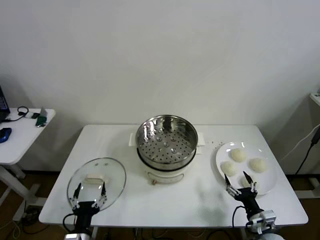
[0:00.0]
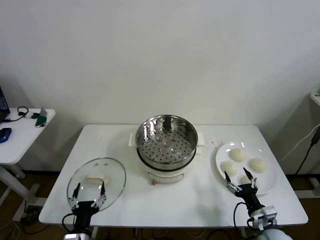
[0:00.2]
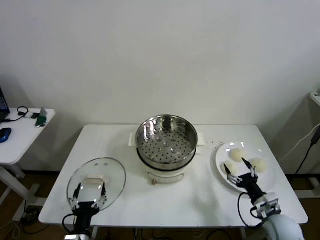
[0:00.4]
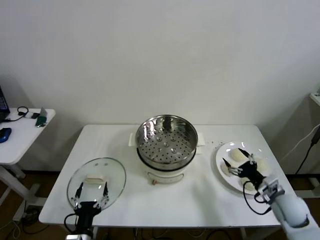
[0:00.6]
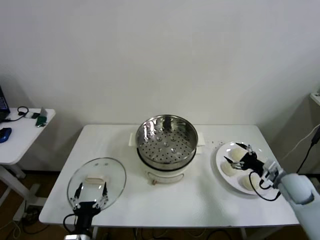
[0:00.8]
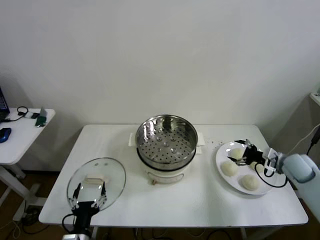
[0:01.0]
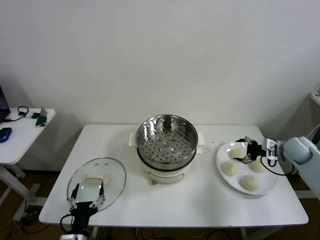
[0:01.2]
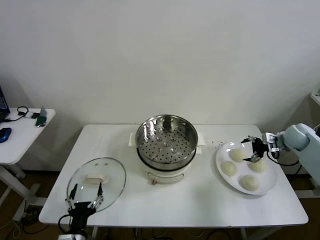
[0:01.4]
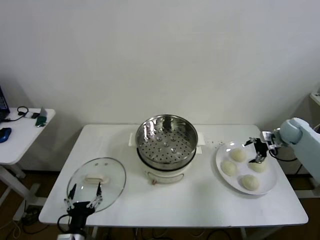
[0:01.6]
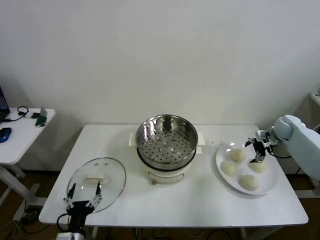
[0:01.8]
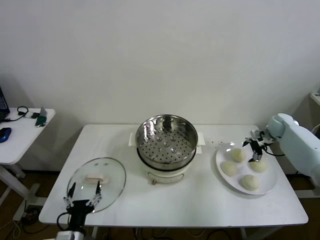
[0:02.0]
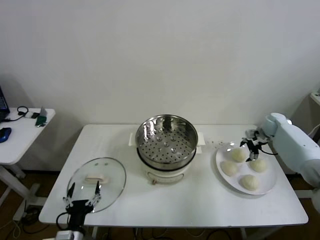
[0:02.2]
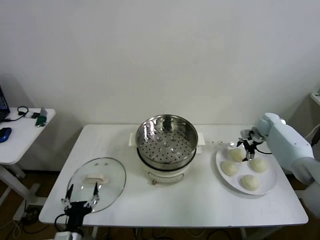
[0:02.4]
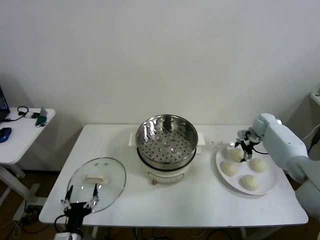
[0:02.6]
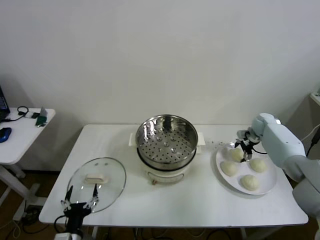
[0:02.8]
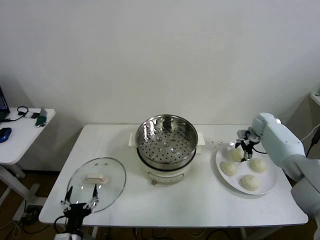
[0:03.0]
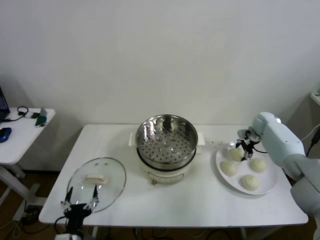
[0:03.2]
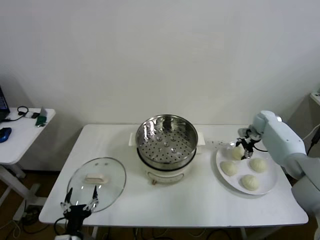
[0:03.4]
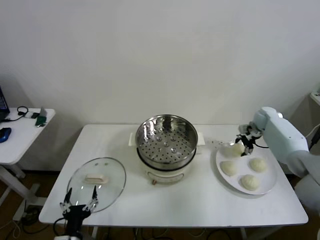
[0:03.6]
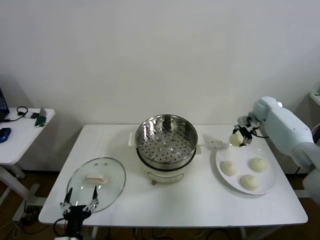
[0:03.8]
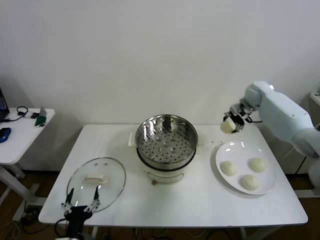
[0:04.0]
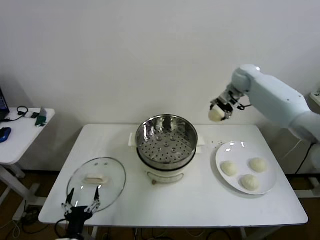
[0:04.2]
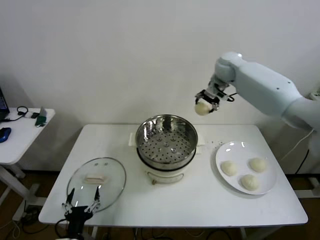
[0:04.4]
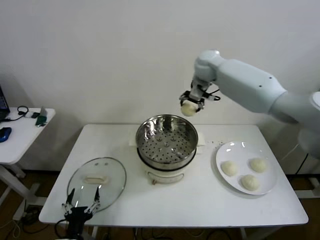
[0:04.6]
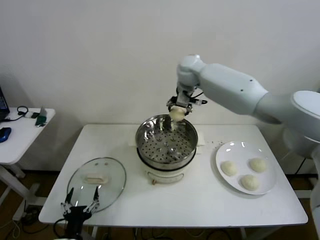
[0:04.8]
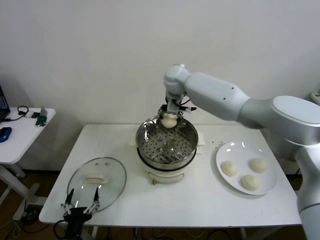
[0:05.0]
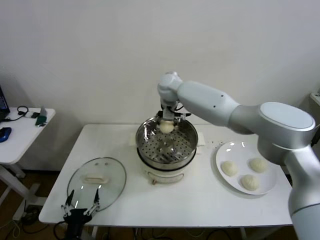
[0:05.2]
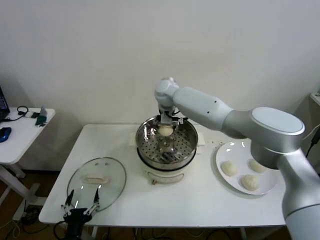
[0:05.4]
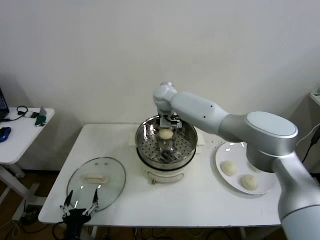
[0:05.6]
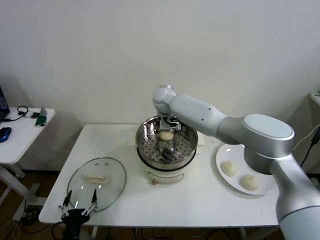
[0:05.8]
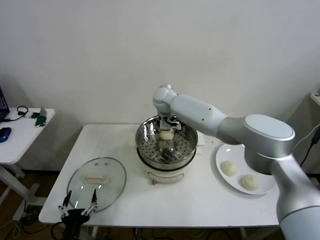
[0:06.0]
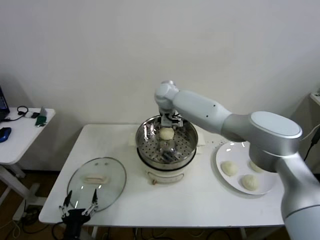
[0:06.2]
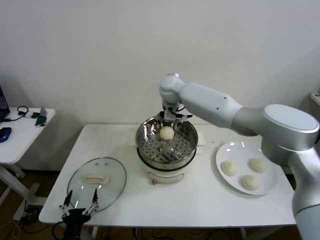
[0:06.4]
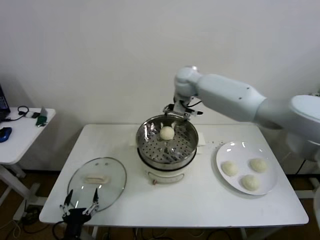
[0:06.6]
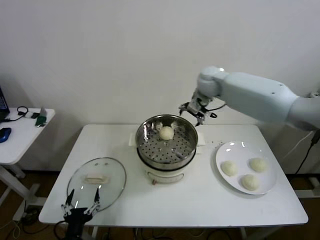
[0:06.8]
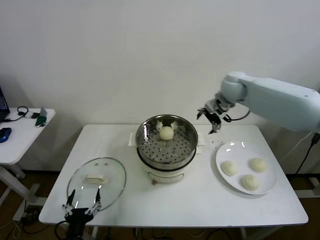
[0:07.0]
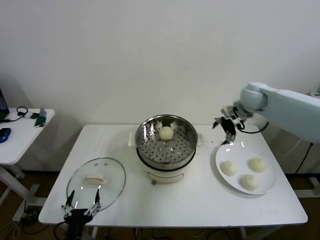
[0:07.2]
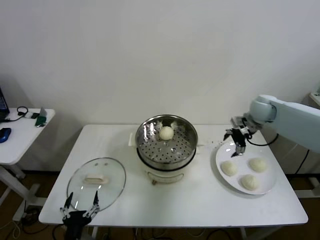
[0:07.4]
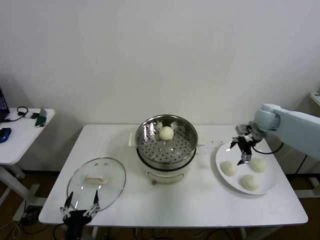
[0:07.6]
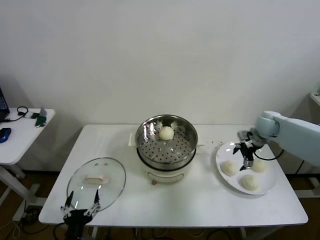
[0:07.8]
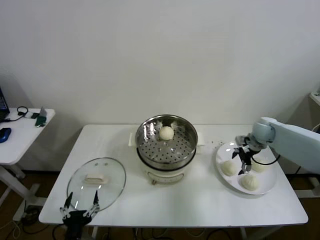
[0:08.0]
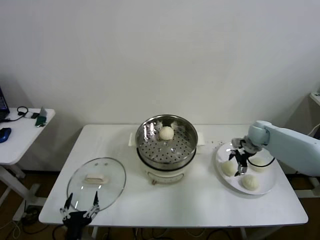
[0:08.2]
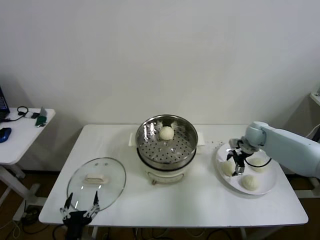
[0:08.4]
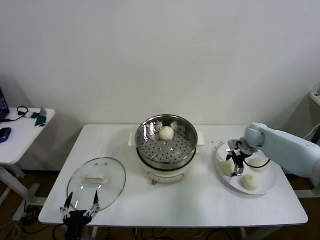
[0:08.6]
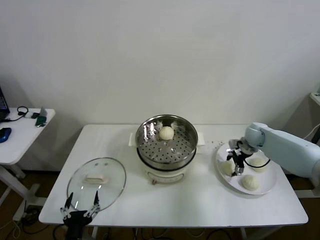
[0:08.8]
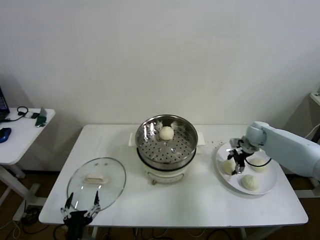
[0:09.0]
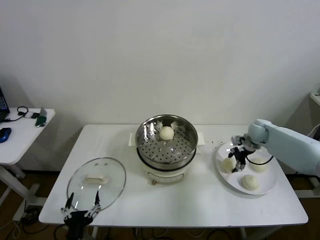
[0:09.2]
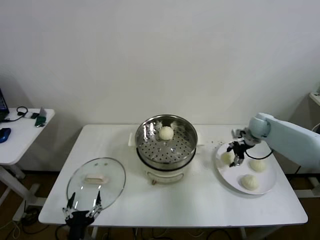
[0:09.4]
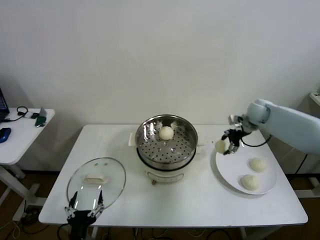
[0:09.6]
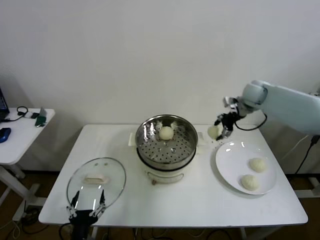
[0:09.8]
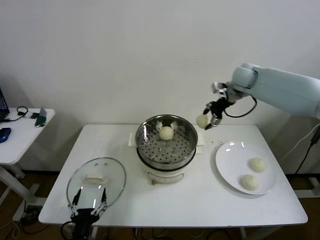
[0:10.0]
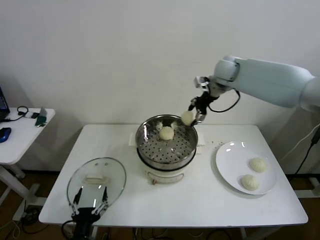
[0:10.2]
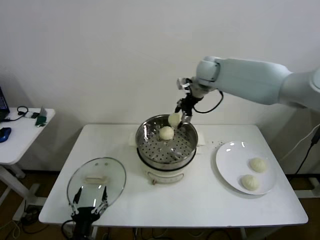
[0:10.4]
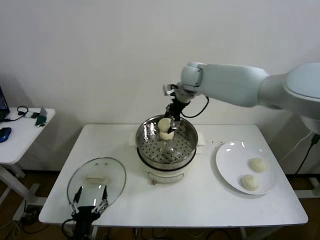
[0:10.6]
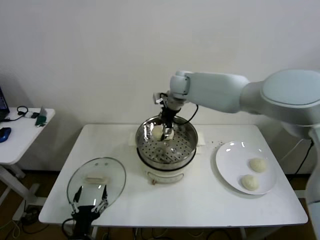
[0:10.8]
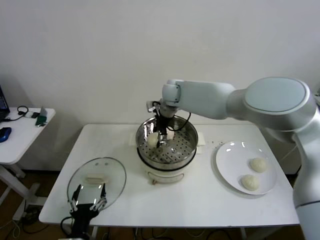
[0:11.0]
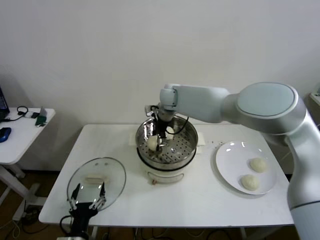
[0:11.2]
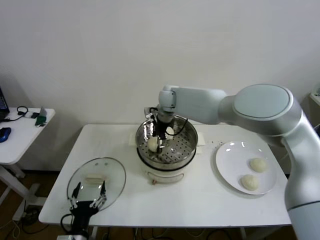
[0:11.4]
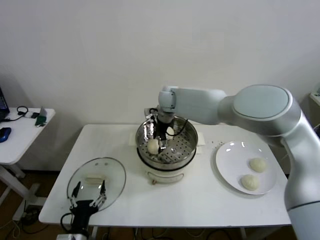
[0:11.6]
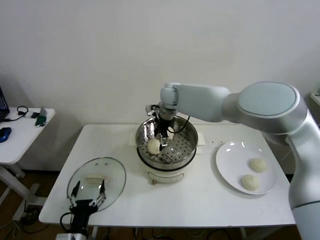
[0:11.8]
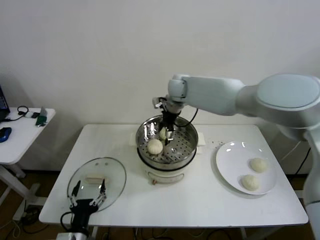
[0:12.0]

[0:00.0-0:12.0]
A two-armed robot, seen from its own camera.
Step, 0:00.0 to 0:03.0: Grasp the baozi in the plate with right gripper.
Step, 0:03.4 to 0:06.0: Place the baozi on the steamer with right gripper.
Step, 0:06.2 to 0:08.8: Grasp the baozi in the plate with right gripper.
Step, 0:09.0 to 0:11.4: Place the baozi on the steamer with right gripper.
0:01.6 to 0:03.0: The right gripper travels forward and to the left by some 10 cm, and closes up.
0:03.0 to 0:04.4: The right gripper shifts about 35 cm upward and to the left.
0:04.4 to 0:06.0: The right gripper shifts approximately 20 cm to the left and downward, and opens up.
0:06.0 to 0:07.6: The right gripper goes approximately 40 cm to the right.
0:07.6 to 0:09.0: The right gripper heads downward, covering some 10 cm, and closes its fingers.
0:09.0 to 0:10.4: The right gripper heads to the left and upward, covering some 35 cm.
0:10.4 to 0:12.0: The right gripper goes about 5 cm to the left, and opens its fingers.

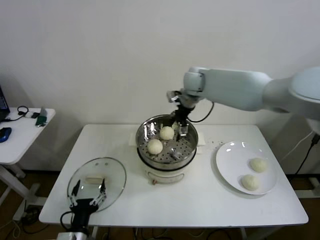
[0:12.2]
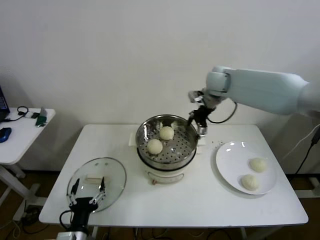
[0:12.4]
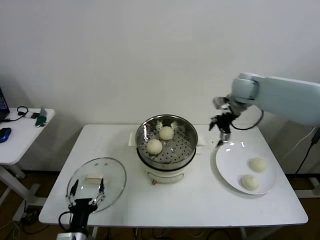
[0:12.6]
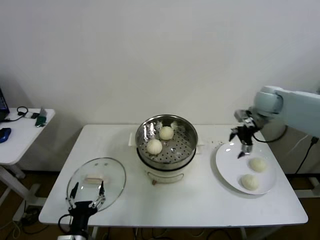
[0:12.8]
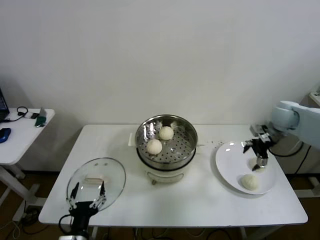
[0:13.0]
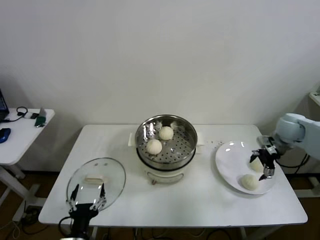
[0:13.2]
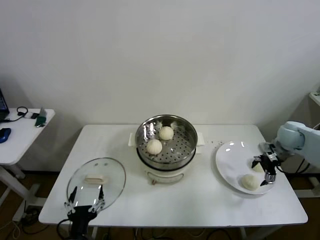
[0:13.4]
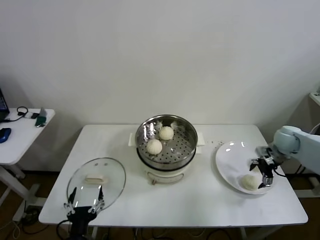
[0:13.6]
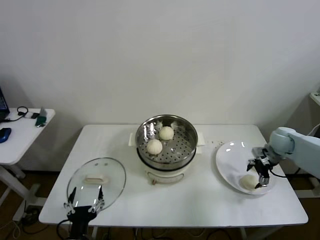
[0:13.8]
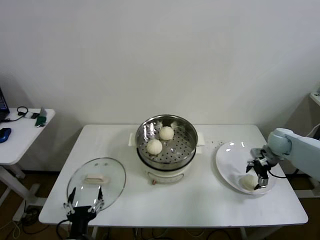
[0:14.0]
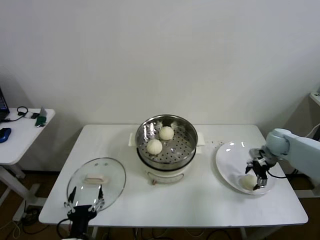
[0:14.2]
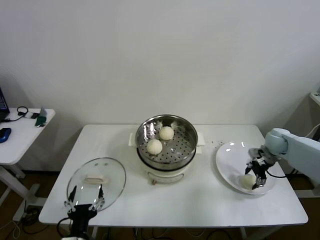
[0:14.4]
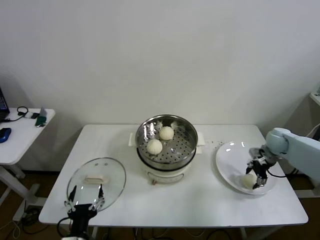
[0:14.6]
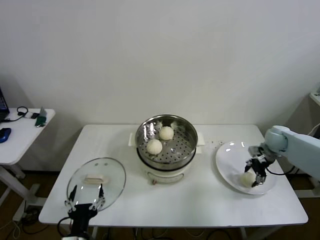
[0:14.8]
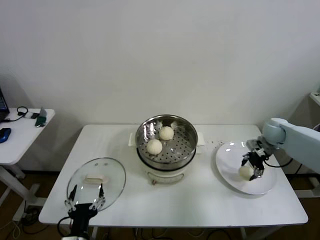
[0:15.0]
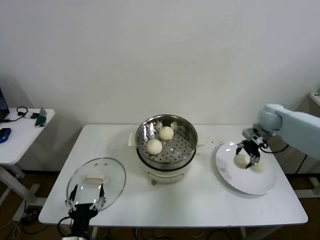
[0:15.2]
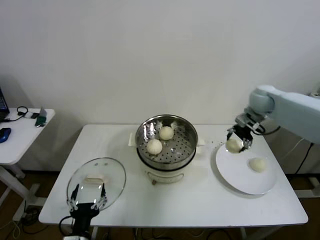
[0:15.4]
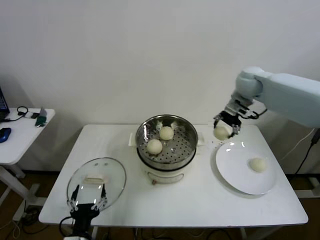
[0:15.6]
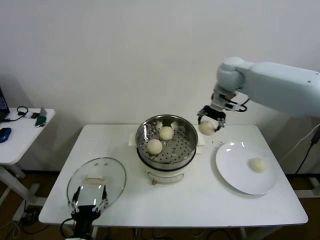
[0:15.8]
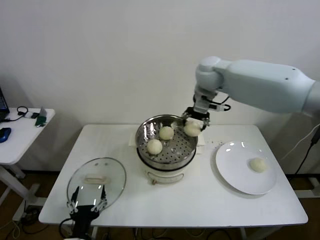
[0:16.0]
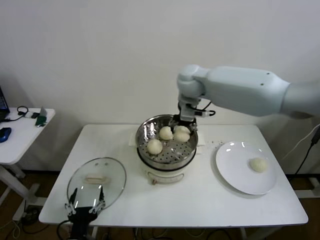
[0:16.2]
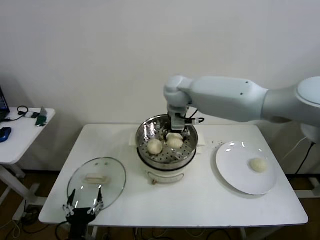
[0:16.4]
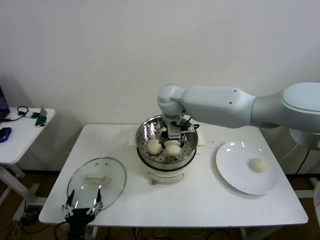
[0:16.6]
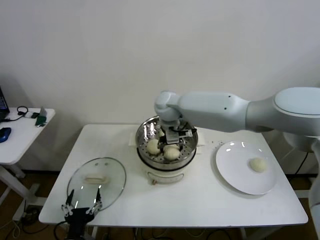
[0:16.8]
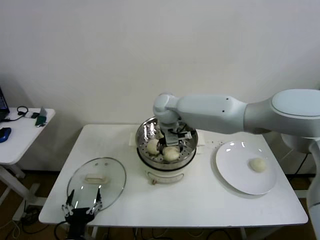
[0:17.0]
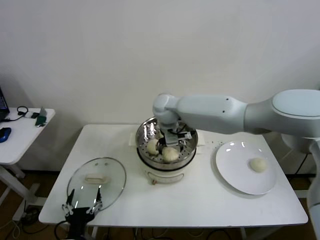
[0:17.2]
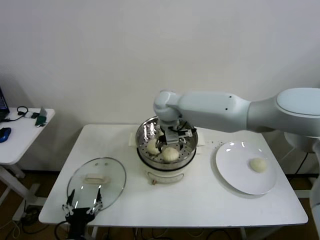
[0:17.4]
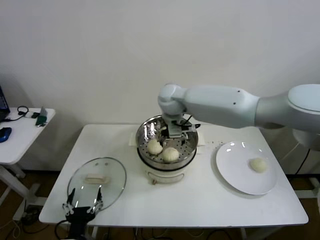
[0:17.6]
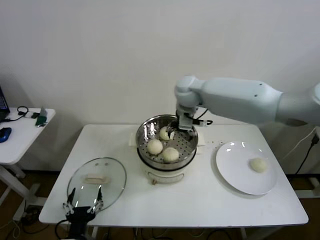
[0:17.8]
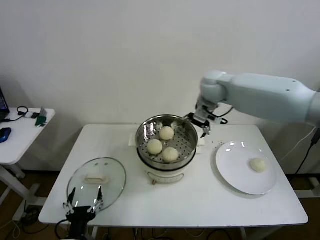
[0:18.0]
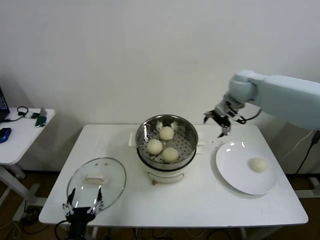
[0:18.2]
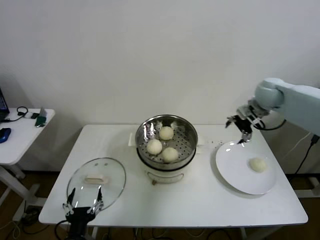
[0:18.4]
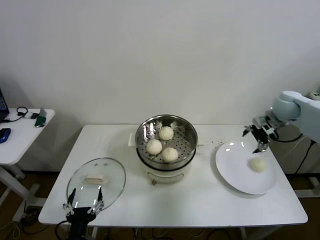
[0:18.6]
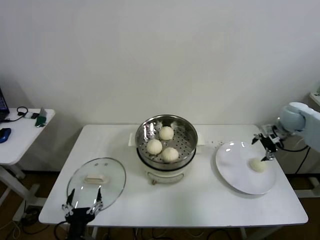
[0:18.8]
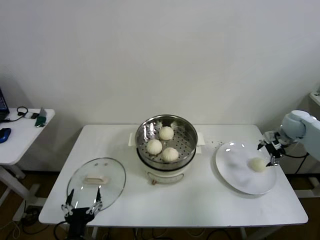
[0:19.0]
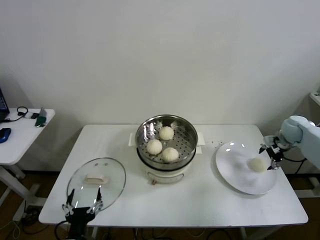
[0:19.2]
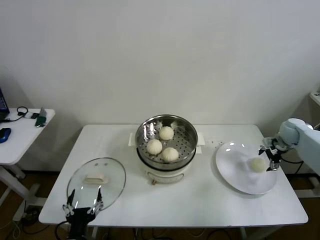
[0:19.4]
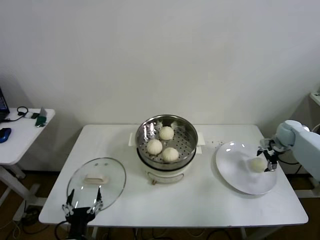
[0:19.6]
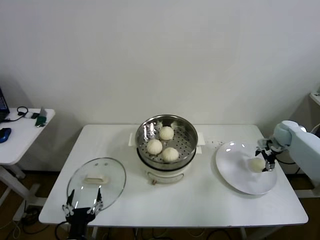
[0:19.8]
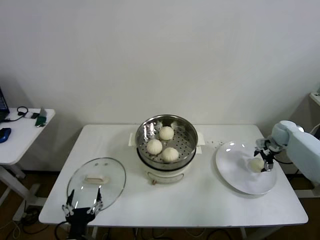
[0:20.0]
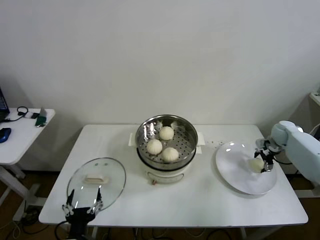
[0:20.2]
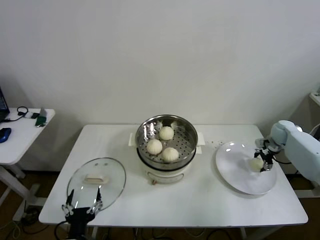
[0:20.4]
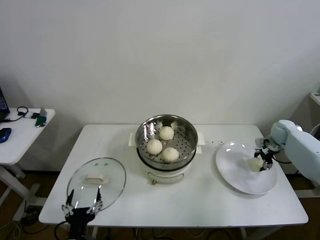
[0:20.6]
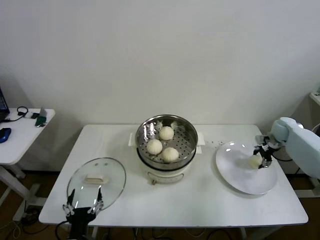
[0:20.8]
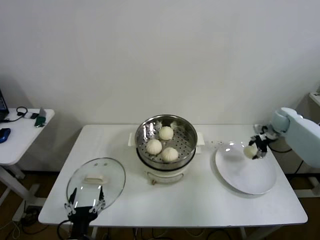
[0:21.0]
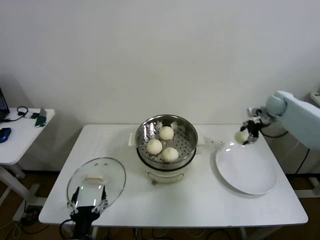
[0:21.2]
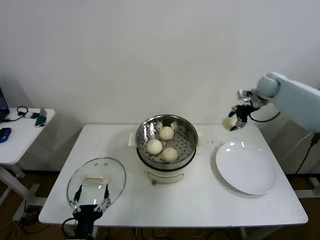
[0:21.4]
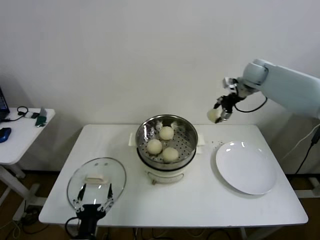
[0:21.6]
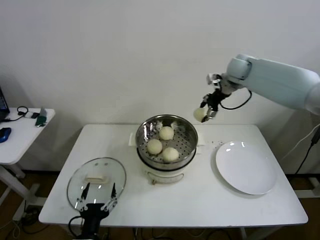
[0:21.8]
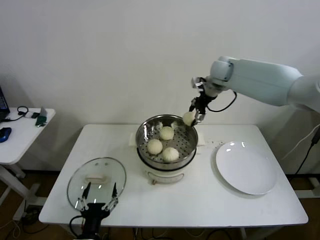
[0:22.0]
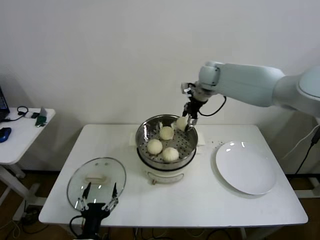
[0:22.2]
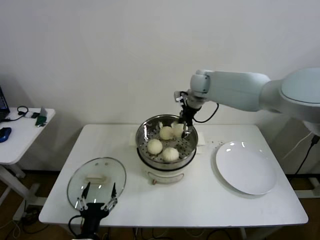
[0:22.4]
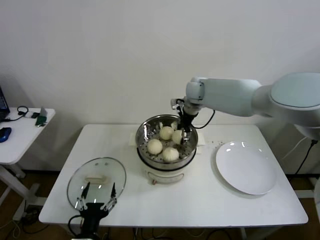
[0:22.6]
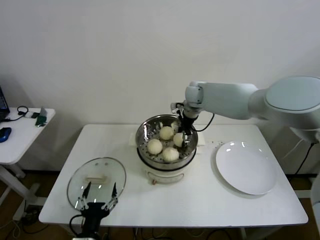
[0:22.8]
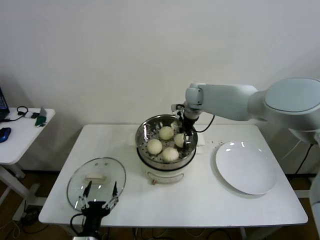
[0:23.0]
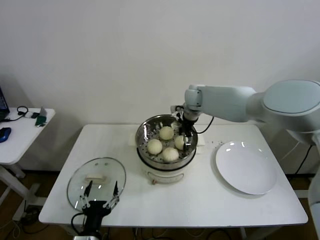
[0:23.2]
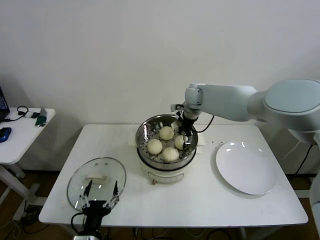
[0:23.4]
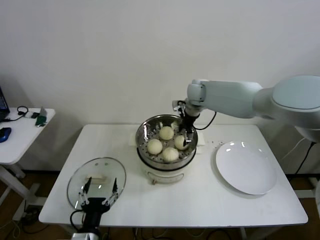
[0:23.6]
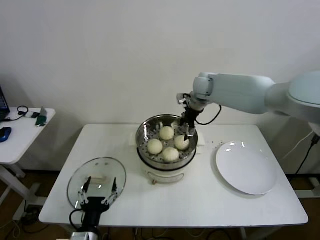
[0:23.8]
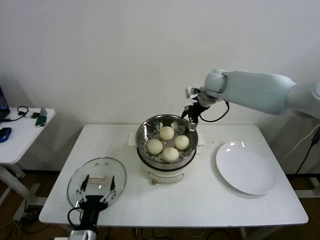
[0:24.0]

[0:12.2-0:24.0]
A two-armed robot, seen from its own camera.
Step, 0:12.2 to 0:14.6: Grasp the baozi in the plate with right gripper.
Step, 0:14.8 to 0:17.2: Place the baozi on the steamer with right gripper.
Step, 0:17.4 to 0:20.4: Grasp the baozi in the plate with right gripper.
Step, 0:20.8 to 0:23.4: Place the baozi on the steamer with right gripper.
0:12.2 to 0:13.6: The right gripper heads to the right and downward, covering approximately 35 cm.
0:13.6 to 0:15.2: The right gripper goes roughly 10 cm upward, forward and to the left, and closes its fingers.
0:15.2 to 0:16.6: The right gripper travels to the left by approximately 35 cm.
0:16.6 to 0:18.2: The right gripper heads to the right, covering roughly 25 cm, and opens up.
0:18.2 to 0:19.6: The right gripper goes roughly 30 cm to the right and downward.
0:19.6 to 0:21.0: The right gripper ends up approximately 5 cm from where it was, and closes its fingers.
0:21.0 to 0:22.6: The right gripper travels to the left by some 35 cm.
0:22.6 to 0:24.0: The right gripper shifts roughly 5 cm to the right, and opens its fingers.
